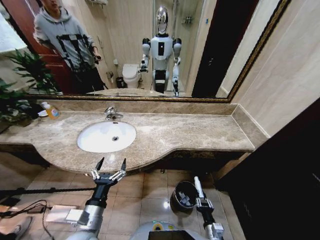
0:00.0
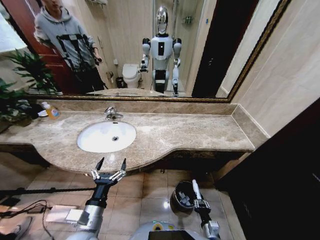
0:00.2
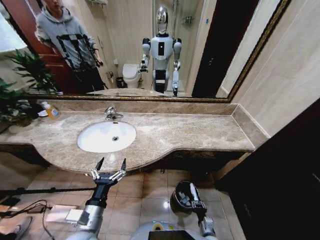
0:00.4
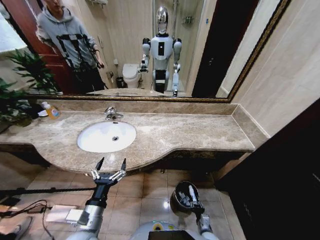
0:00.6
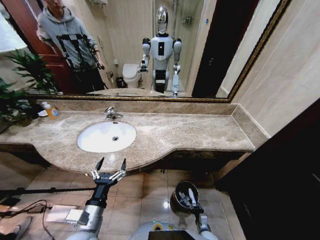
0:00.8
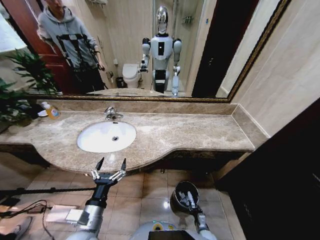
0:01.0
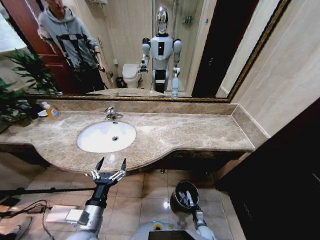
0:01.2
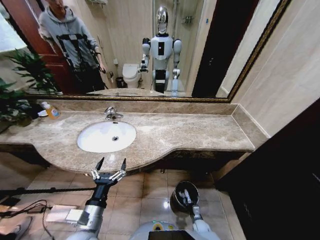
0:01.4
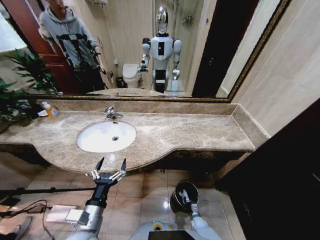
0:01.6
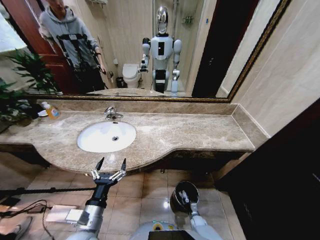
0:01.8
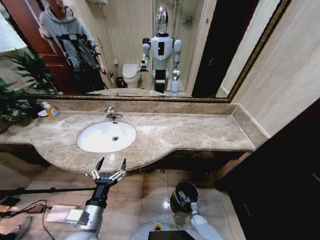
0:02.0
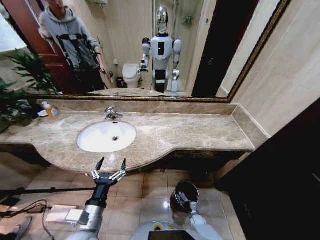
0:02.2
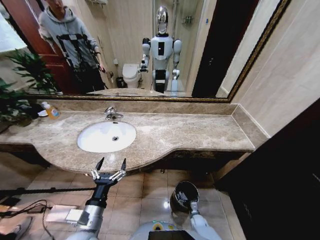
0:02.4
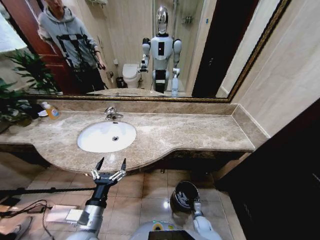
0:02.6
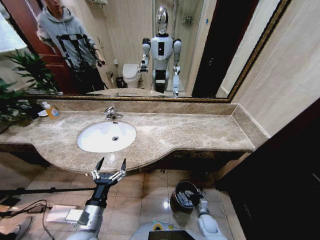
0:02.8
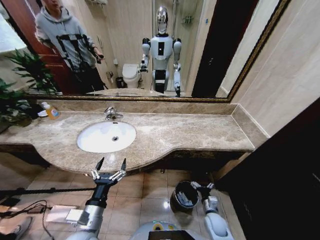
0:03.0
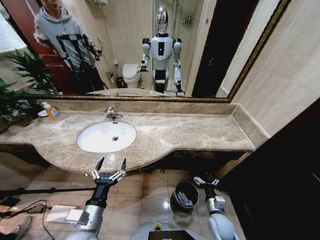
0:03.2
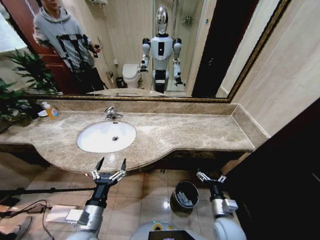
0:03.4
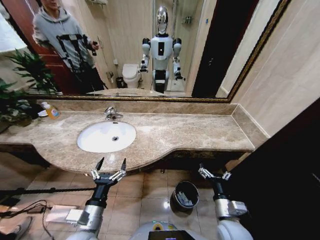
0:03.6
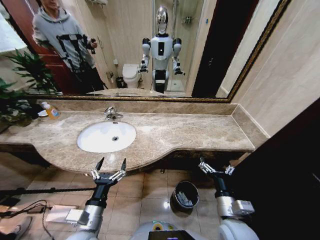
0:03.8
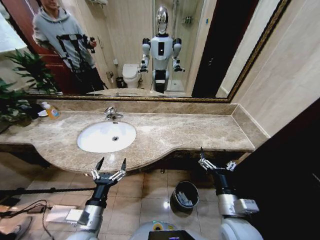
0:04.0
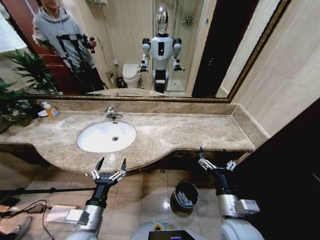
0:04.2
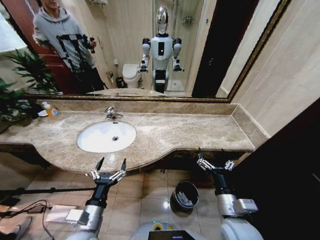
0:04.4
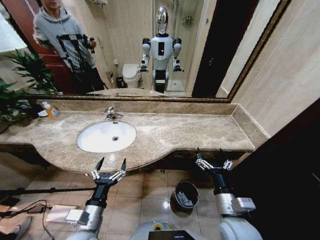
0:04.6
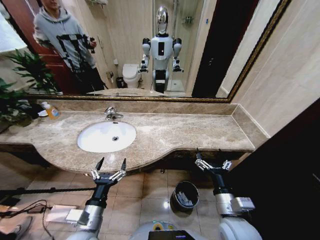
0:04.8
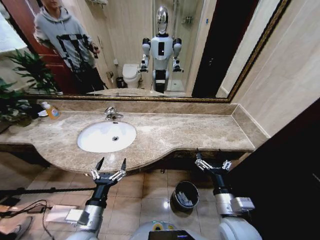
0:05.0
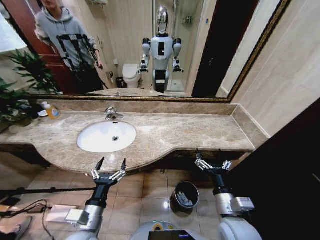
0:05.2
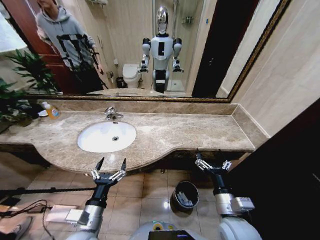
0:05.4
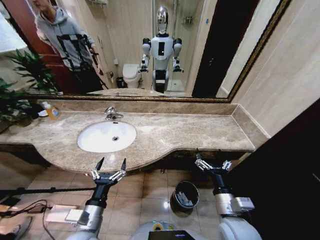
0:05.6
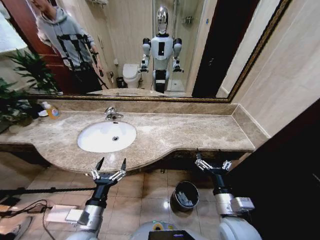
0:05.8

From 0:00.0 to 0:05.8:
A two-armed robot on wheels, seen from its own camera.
Task of the whole recording: Pick up the trash from the sink and place it in the trash bin.
From 0:00.0 to 0:01.4: The right gripper shifts about 20 cm downward and forward.
From 0:01.4 to 0:02.8: The right gripper is displaced upward by approximately 10 cm, and opens up.
From 0:02.8 to 0:04.4: The right gripper moves upward, roughly 35 cm.
From 0:04.4 to 0:05.8: Both grippers stay about where they are.
